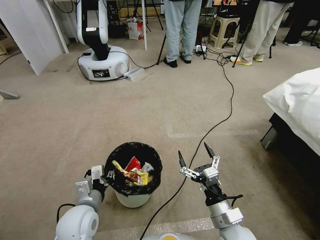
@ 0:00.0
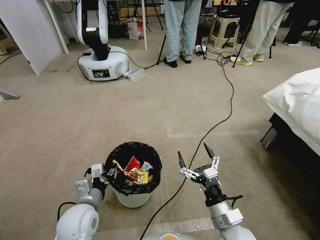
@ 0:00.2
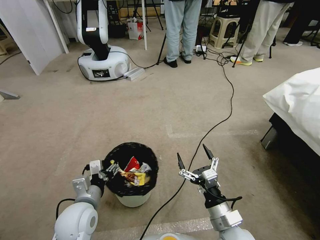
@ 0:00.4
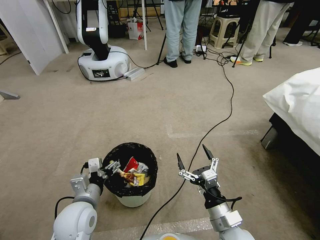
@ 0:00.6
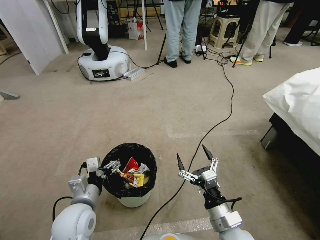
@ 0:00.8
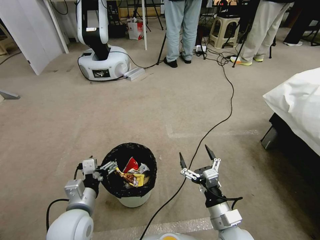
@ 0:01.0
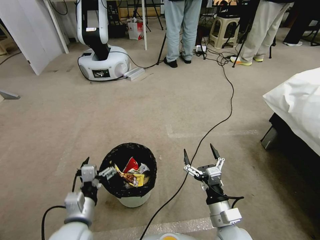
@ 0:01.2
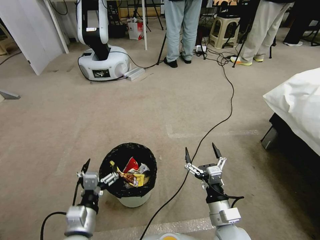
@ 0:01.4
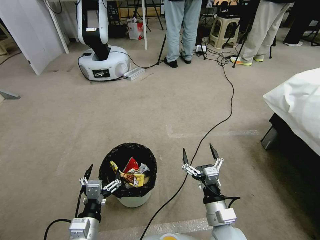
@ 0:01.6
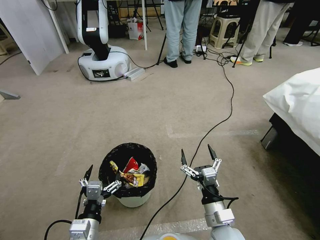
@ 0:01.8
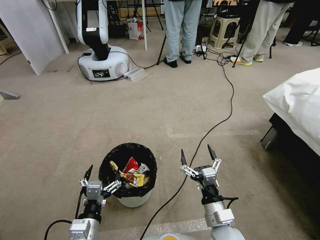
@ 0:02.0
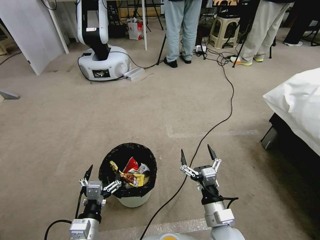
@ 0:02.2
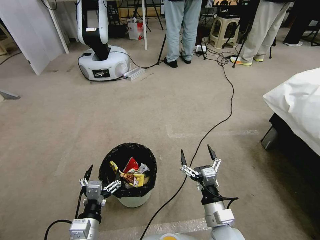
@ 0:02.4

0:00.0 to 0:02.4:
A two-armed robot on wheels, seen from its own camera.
Task of the whole recording: Pick up the trash bin, then pick up the garbage from the floor and place it into the trash bin.
0:00.0 to 0:01.2: The left gripper opens.
0:01.2 to 0:02.4: The left gripper moves some 5 cm.
